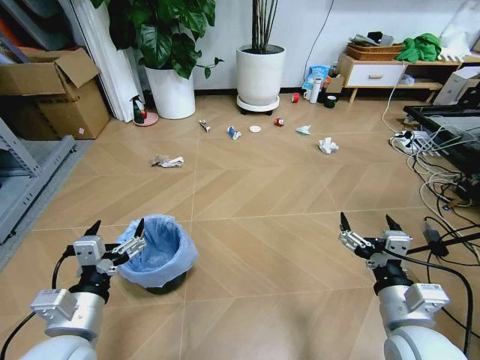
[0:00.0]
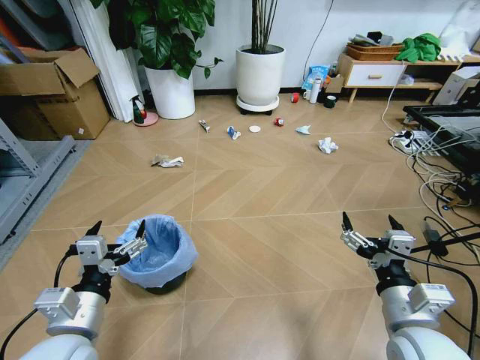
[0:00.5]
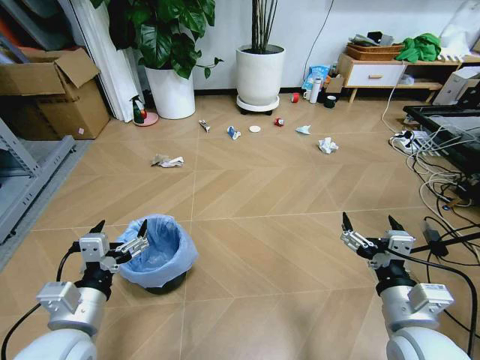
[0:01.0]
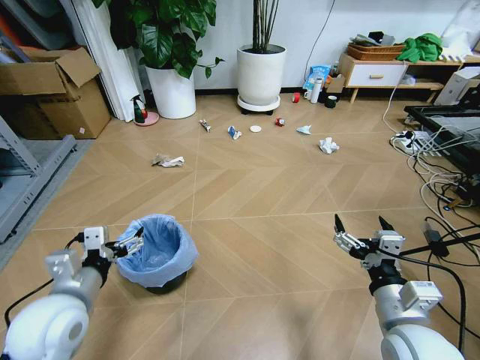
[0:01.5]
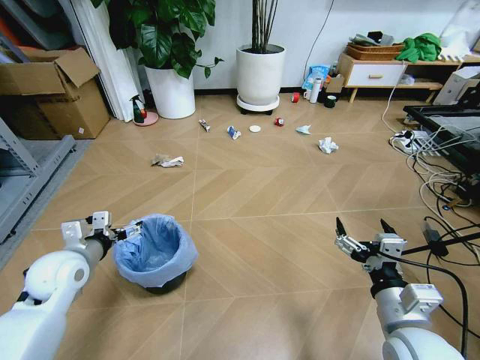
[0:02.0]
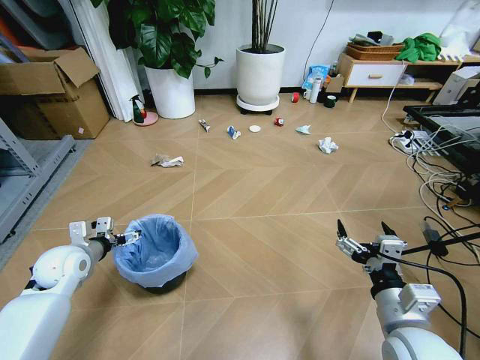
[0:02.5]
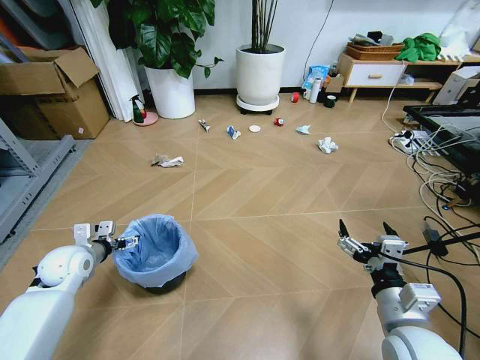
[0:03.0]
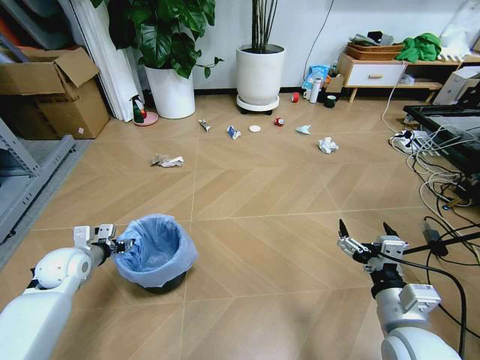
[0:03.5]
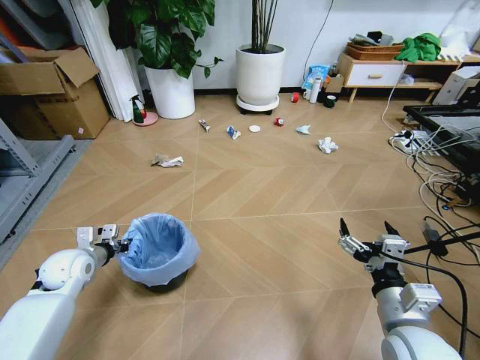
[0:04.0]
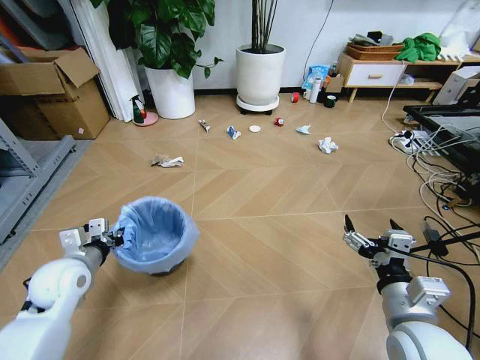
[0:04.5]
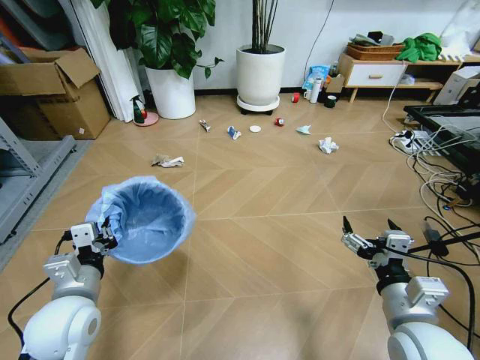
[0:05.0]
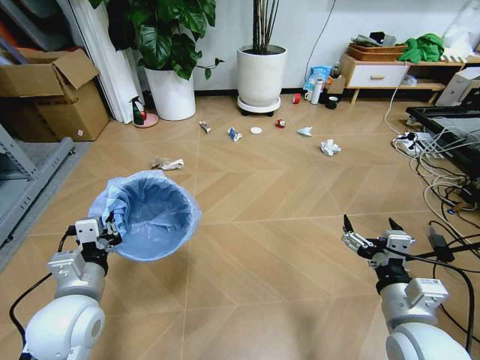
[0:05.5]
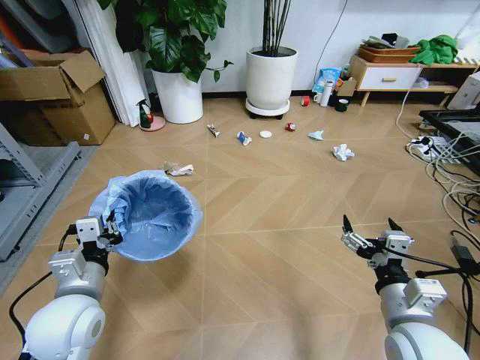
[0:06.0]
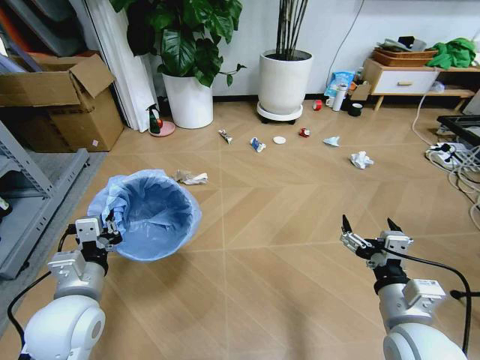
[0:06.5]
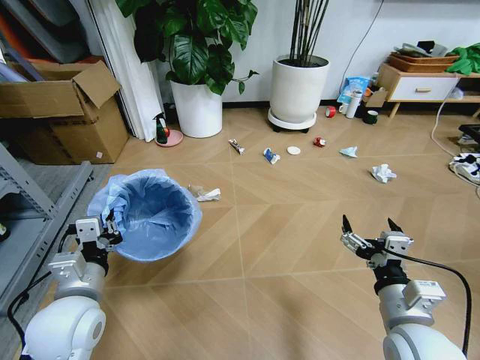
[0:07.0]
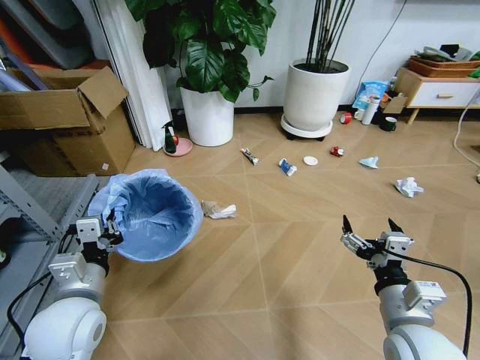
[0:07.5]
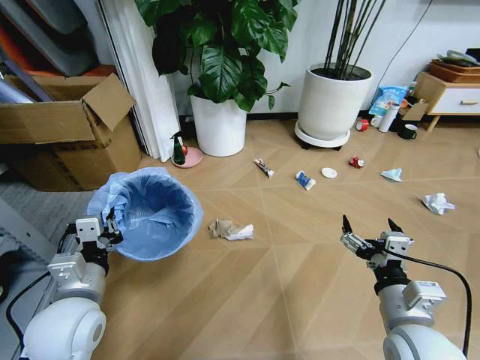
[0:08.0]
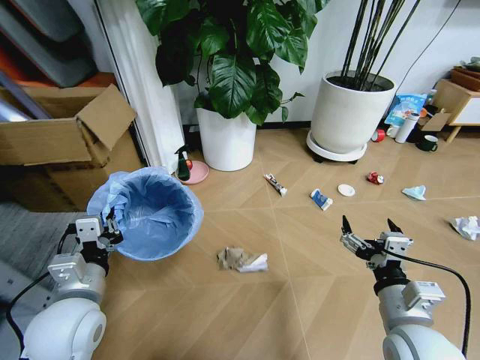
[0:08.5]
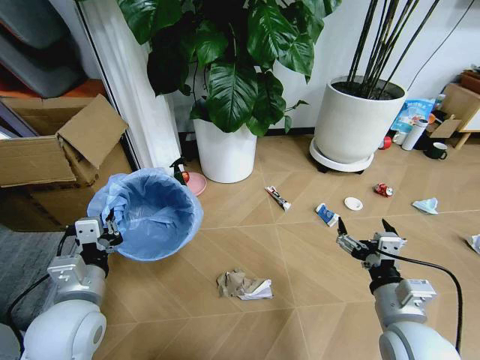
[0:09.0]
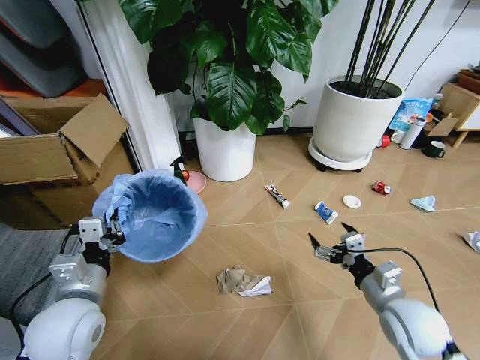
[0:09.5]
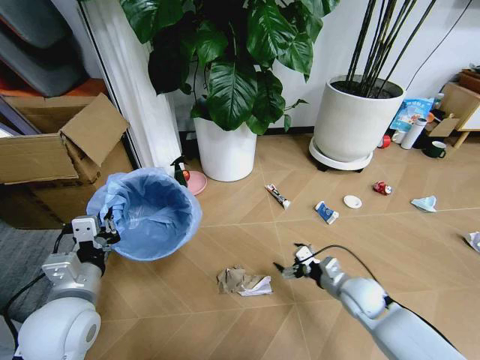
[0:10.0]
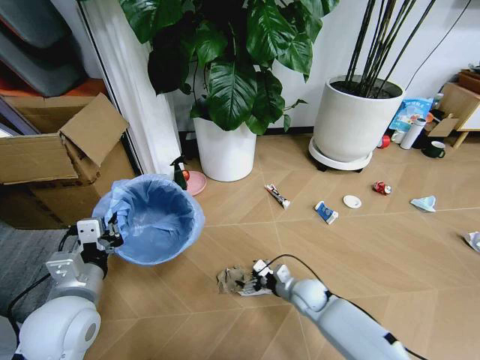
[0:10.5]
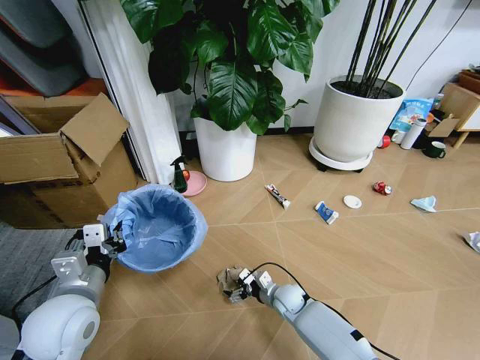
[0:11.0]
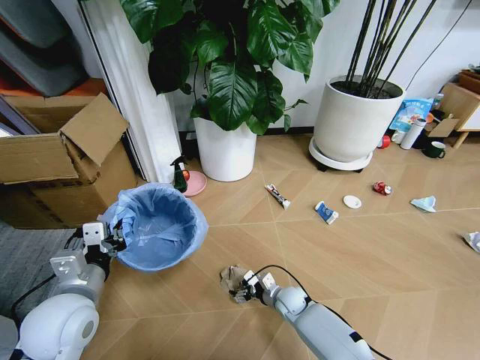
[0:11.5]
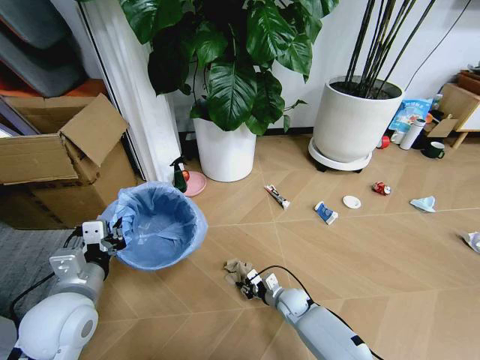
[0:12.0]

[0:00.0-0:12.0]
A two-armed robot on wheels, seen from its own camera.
Task of the whole recording: Pick up the trash bin and place the garbage on the floor into it.
0:02.0 to 0:04.0: The left gripper travels downward by some 5 cm, and closes its fingers.
0:04.0 to 0:06.0: The left gripper moves backward, to the right and upward, roughly 20 cm.
0:08.0 to 0:10.0: The right gripper goes some 20 cm downward and forward.
0:10.0 to 0:12.0: The right gripper is displaced downward and to the left by roughly 20 cm, and closes.

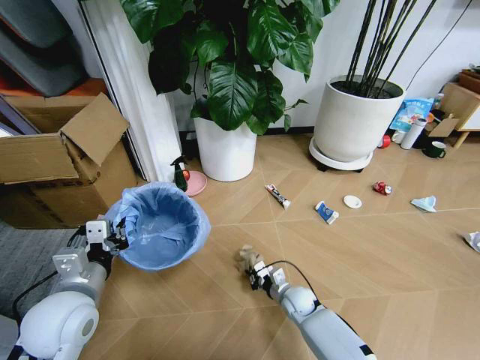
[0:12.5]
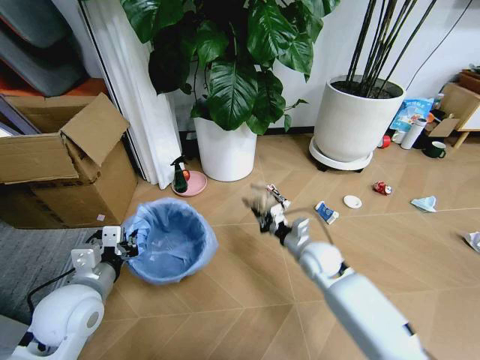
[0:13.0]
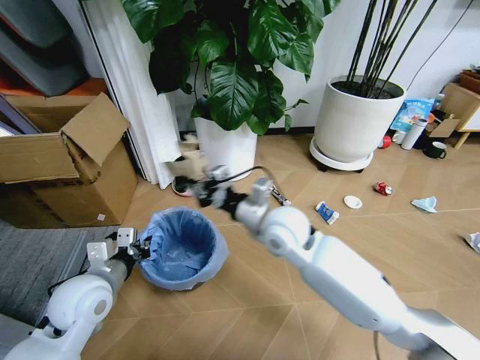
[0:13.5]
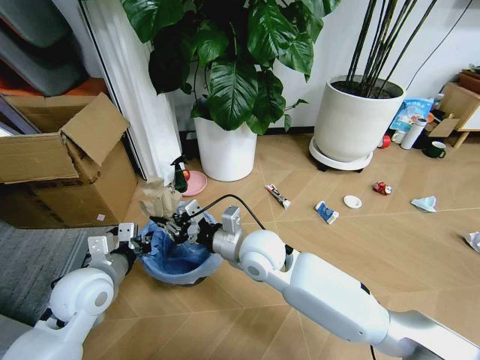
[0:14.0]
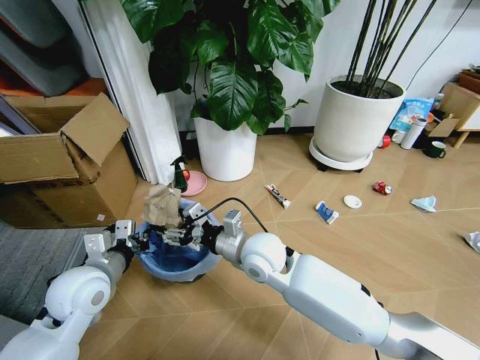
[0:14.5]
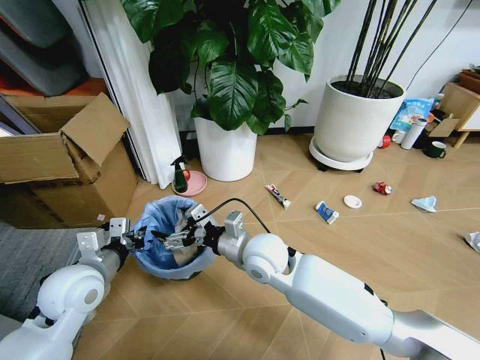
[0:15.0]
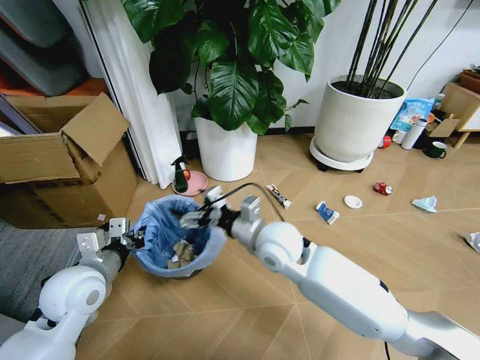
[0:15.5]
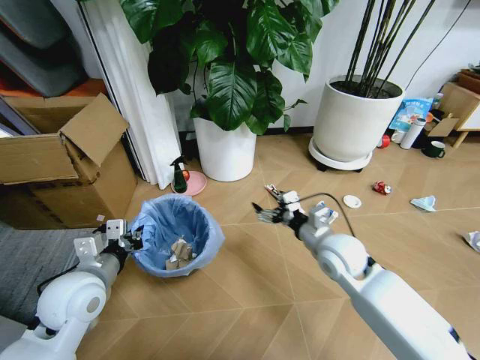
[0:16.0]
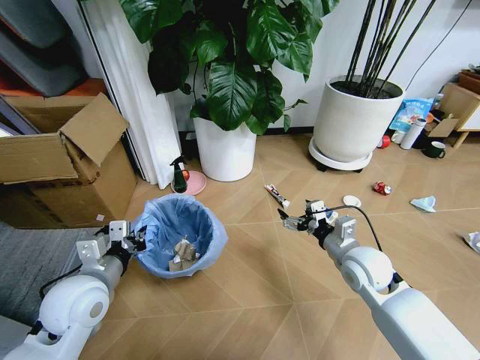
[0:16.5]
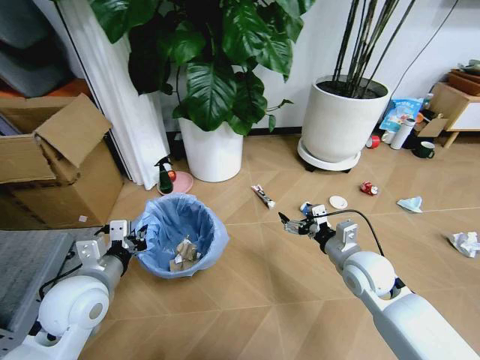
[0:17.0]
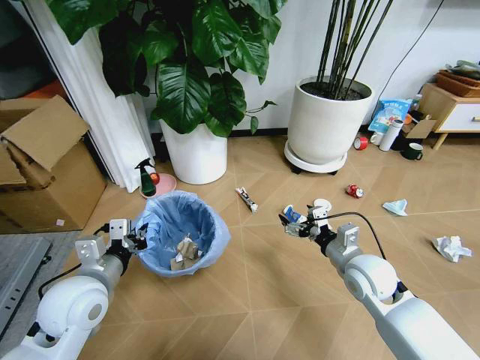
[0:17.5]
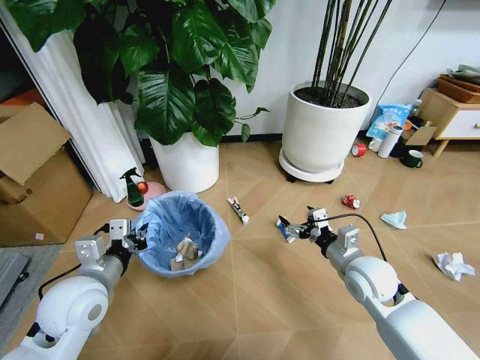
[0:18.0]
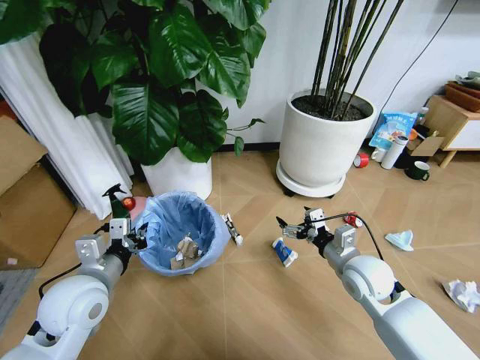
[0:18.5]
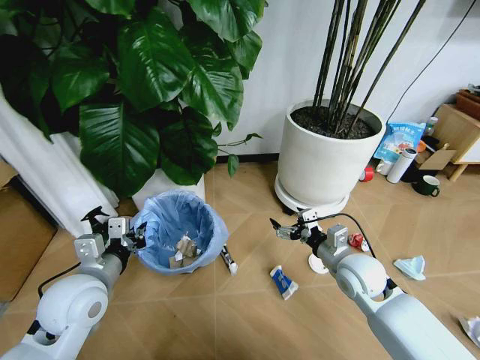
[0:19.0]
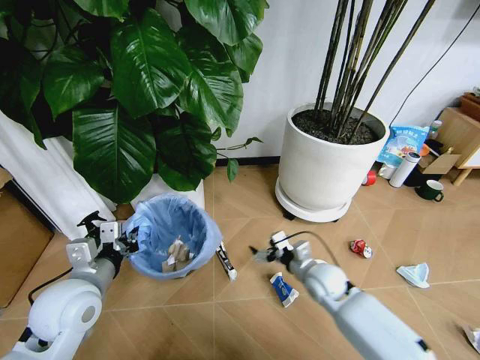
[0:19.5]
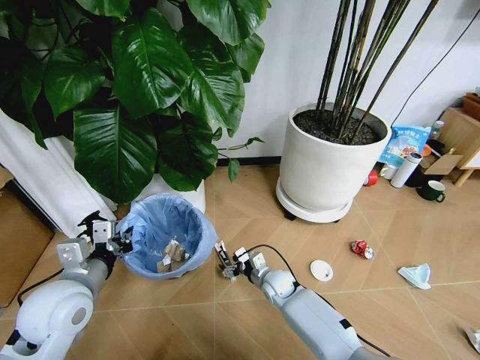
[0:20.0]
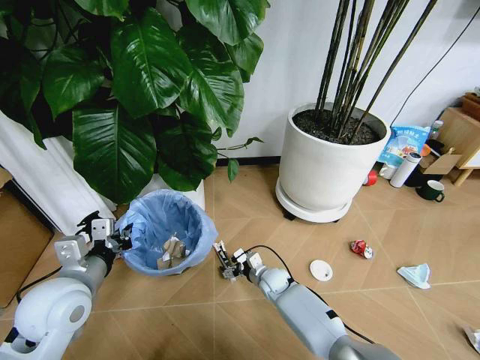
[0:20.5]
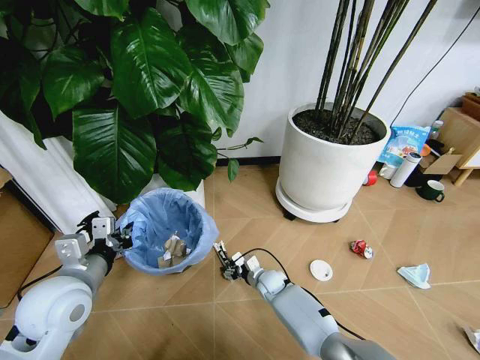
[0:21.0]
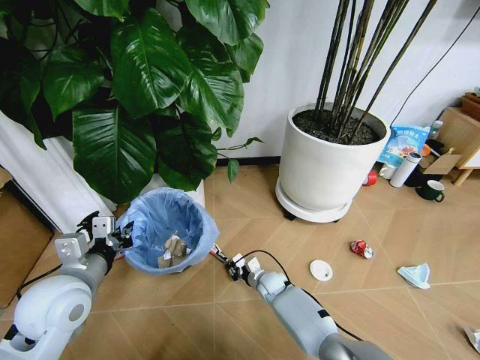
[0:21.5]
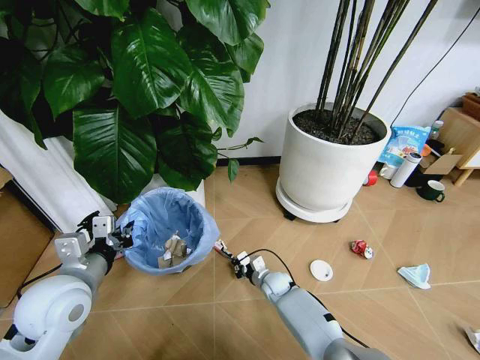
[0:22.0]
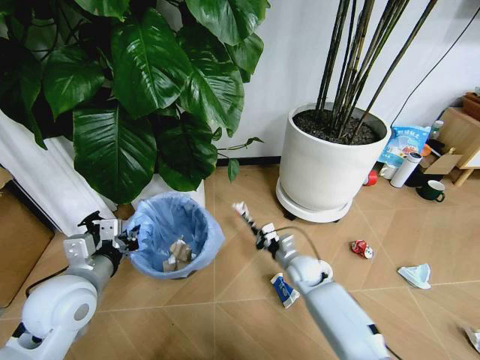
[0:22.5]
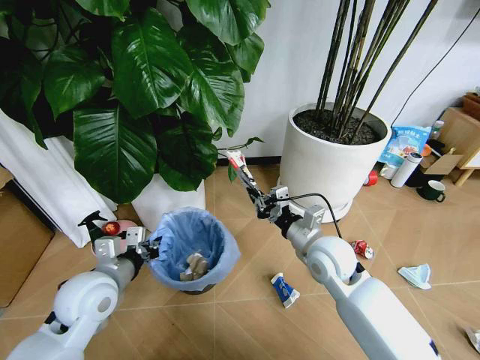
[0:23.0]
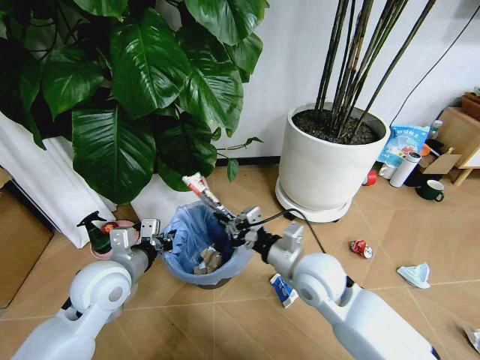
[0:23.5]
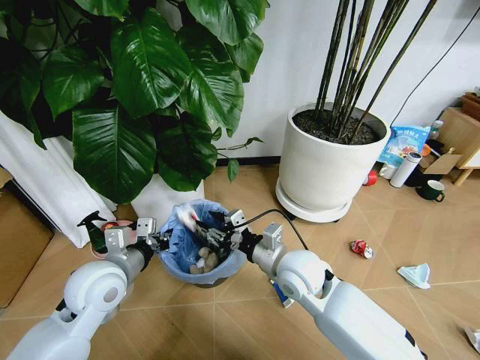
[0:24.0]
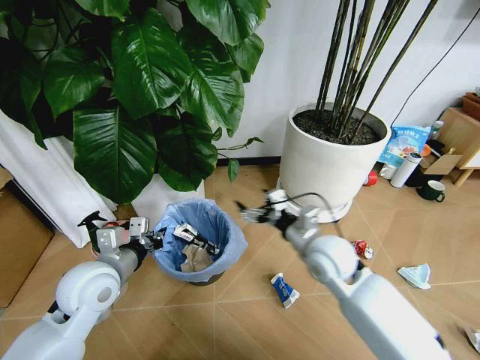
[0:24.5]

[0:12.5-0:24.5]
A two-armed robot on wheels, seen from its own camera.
Task of the whole recording: Pick up the trash bin and place the garbage on the floor into it.
0:12.5 to 0:14.5: The left gripper shifts about 5 cm forward, while the right gripper moves upward and to the left, approximately 30 cm, and opens up.
0:14.5 to 0:16.5: The right gripper moves to the right, about 25 cm.
0:18.5 to 0:20.5: The right gripper shifts approximately 30 cm downward and to the left.
0:20.5 to 0:22.5: The right gripper shifts about 10 cm upward and to the right, and closes up.
0:22.5 to 0:24.5: The right gripper moves upward, about 20 cm, and opens its fingers.

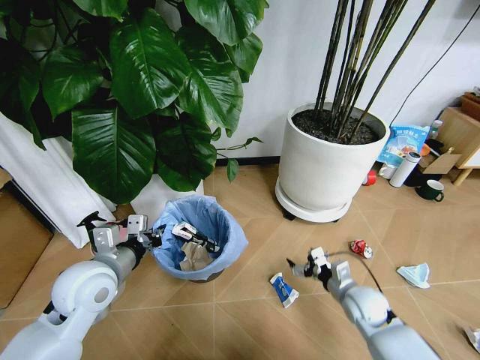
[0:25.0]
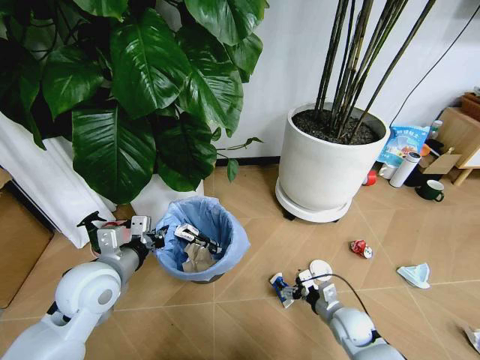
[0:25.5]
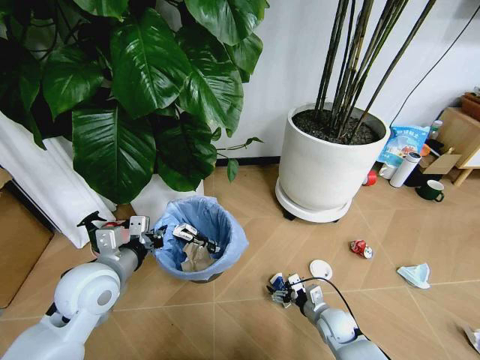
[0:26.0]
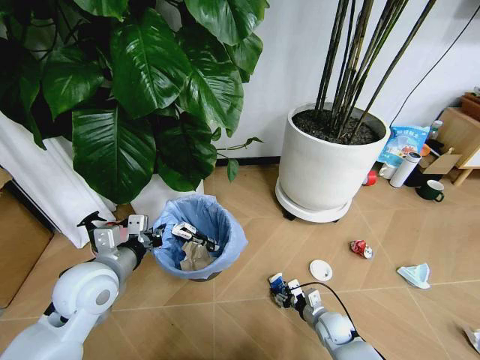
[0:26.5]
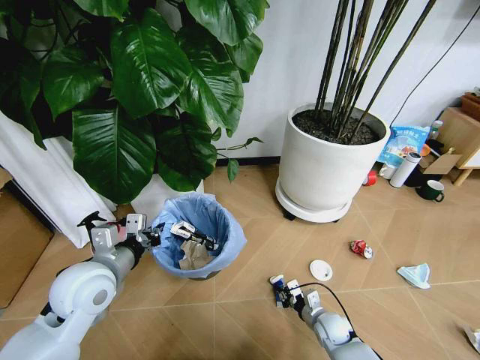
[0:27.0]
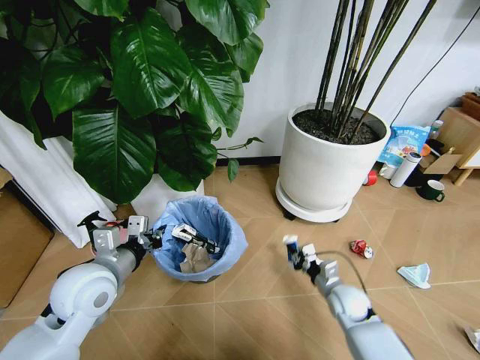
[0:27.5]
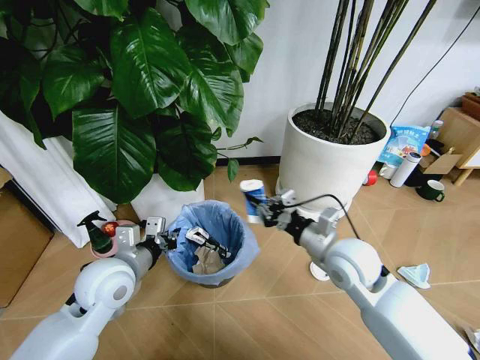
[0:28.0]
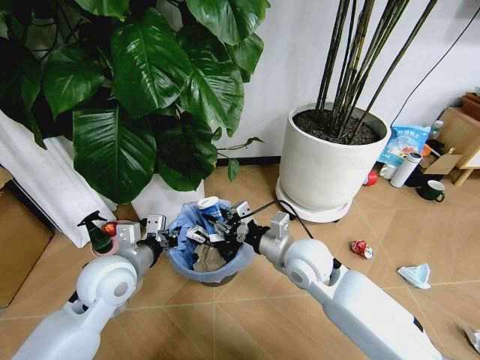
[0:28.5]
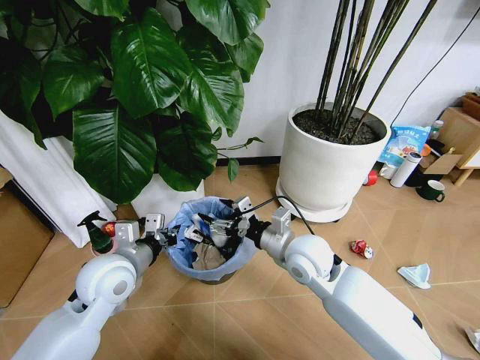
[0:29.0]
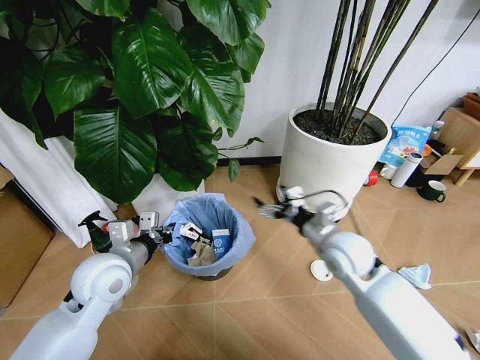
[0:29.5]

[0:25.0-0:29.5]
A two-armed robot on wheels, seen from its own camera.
Task of the whole recording: Pick up the trash bin and place the garbage on the floor into it.
0:25.0 to 0:27.0: The right gripper heads downward, covering roughly 15 cm, and closes.
0:27.0 to 0:29.5: The right gripper moves upward, about 30 cm, and opens its fingers.
